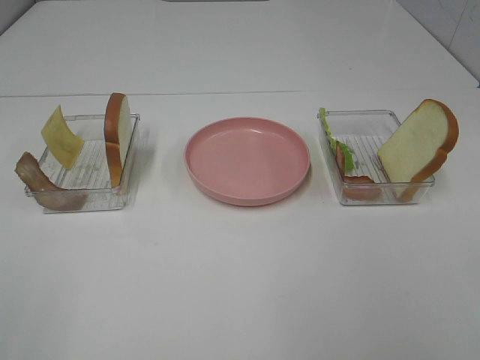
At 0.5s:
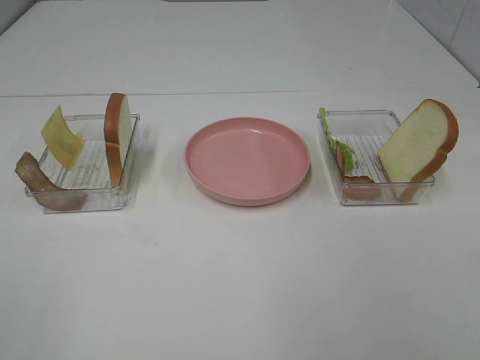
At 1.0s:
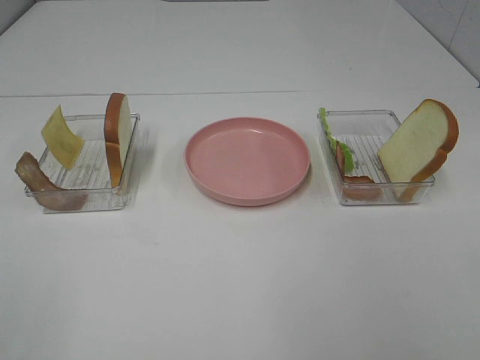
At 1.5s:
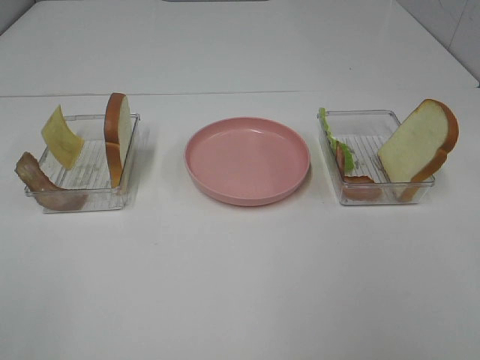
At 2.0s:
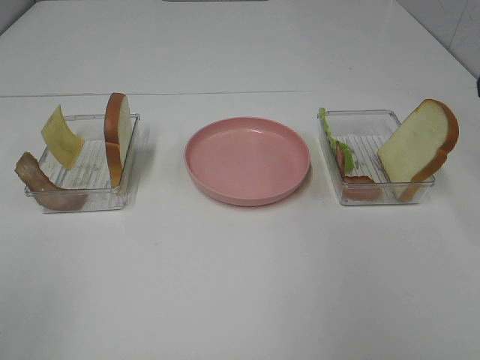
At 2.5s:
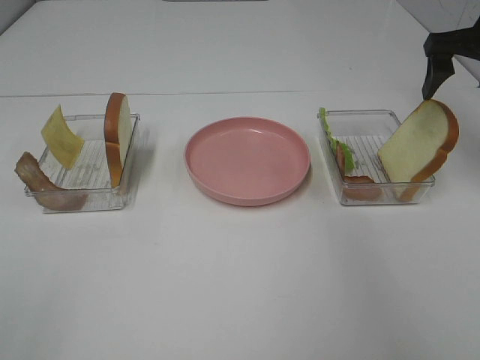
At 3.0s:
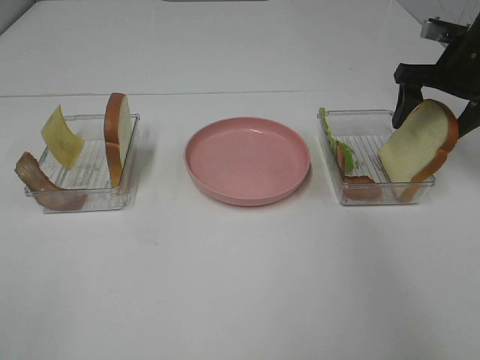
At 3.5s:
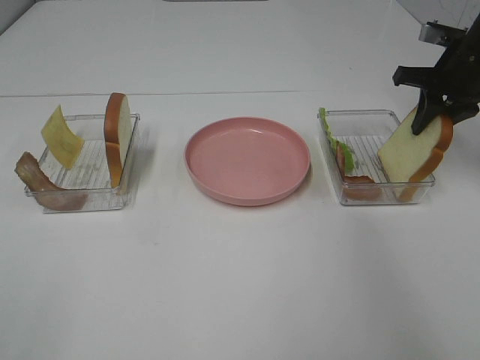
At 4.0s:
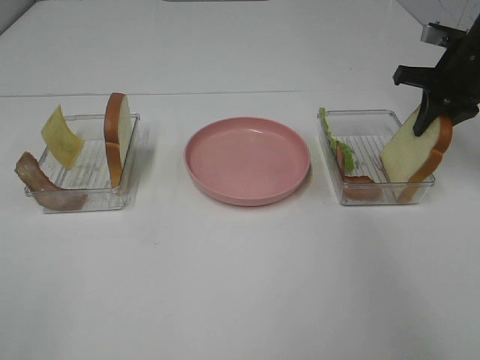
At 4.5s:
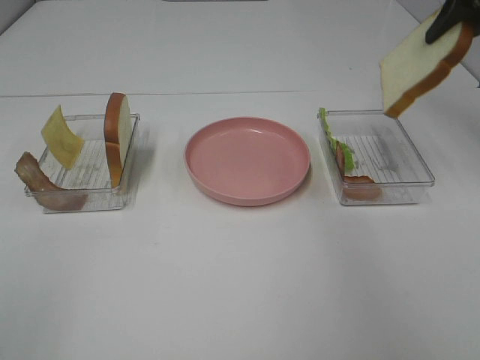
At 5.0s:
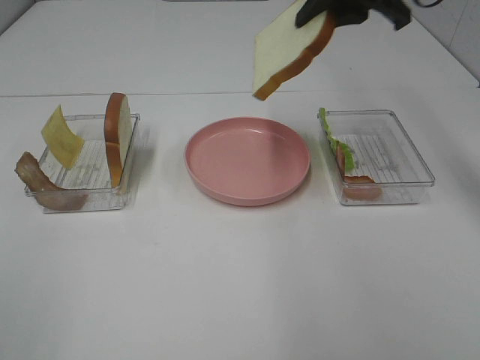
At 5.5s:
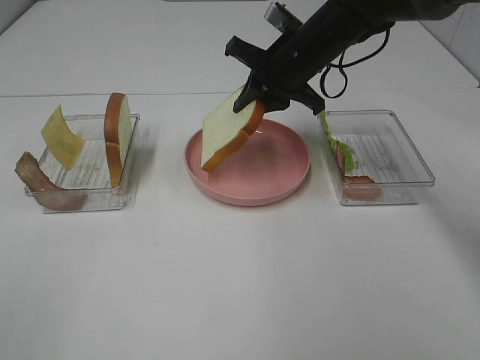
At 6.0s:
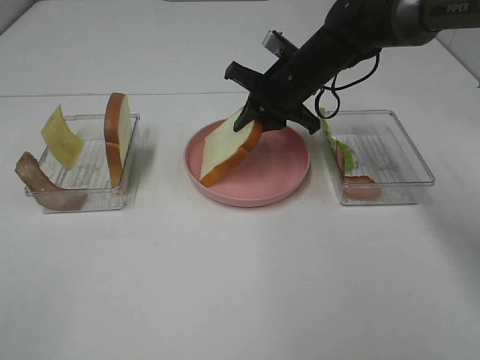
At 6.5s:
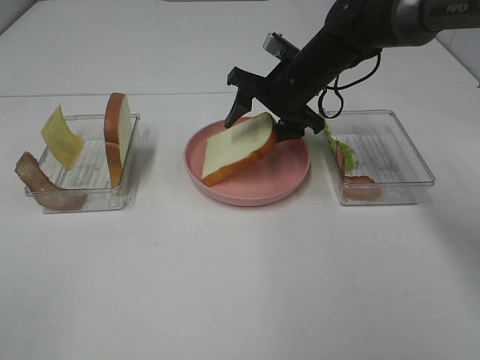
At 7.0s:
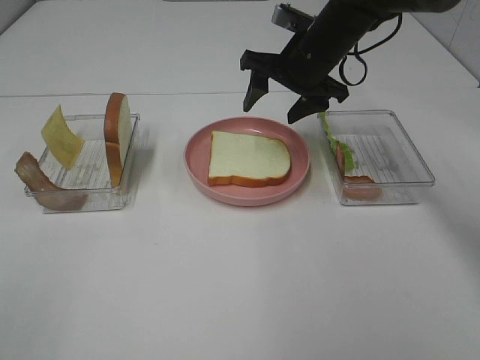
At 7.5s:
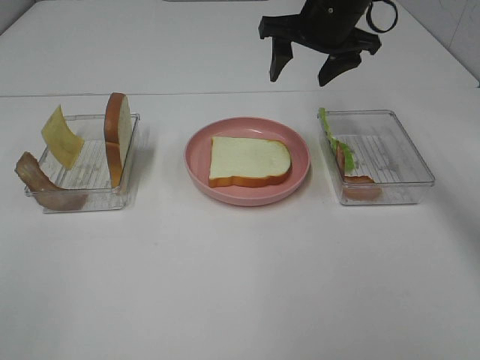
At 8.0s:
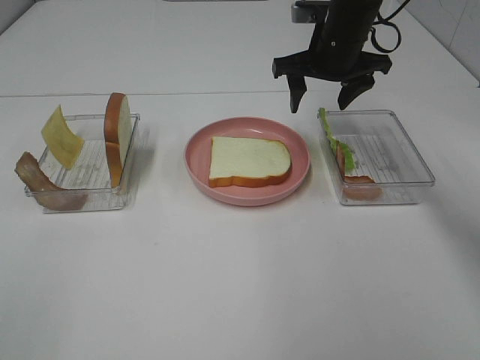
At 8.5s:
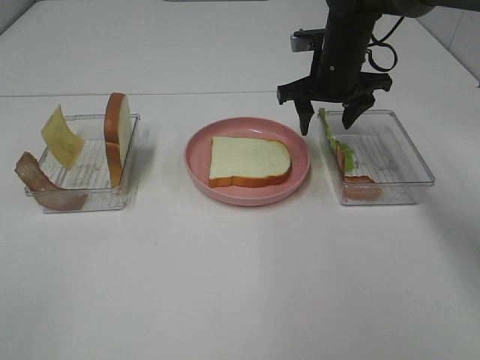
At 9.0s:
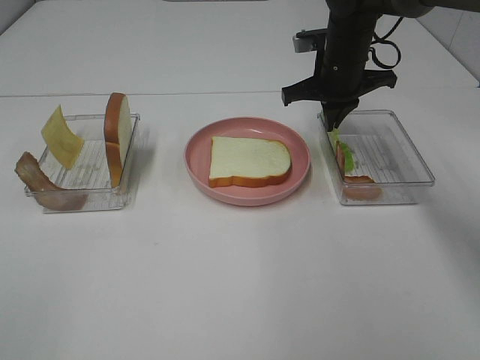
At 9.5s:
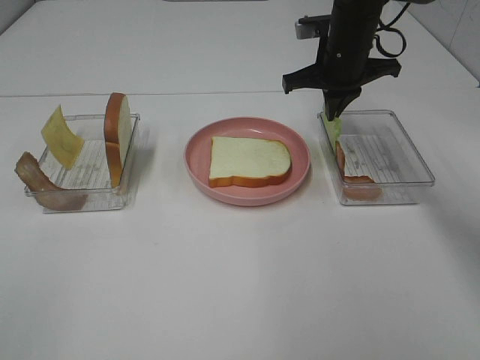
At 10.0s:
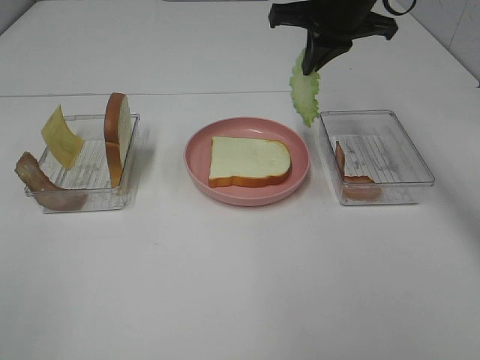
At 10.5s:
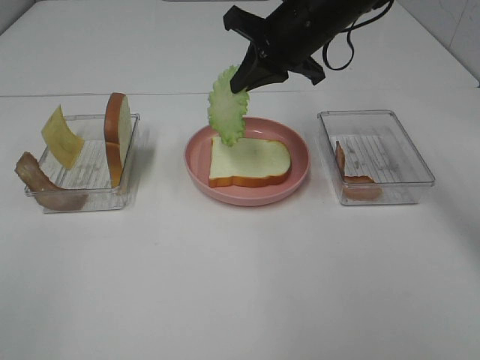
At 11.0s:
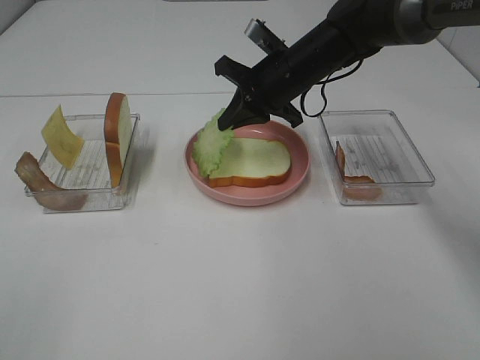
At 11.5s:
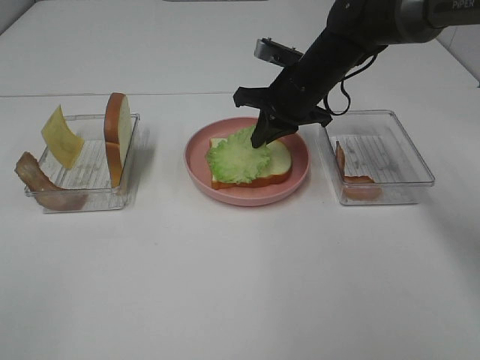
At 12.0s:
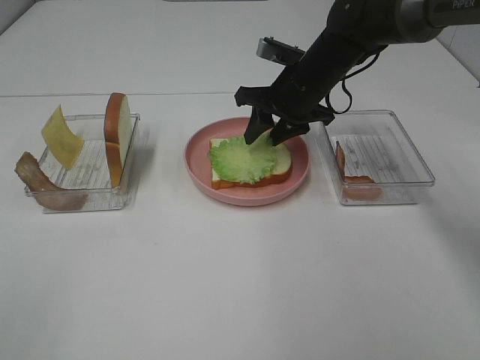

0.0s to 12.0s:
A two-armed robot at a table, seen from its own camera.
Task of the whole recording: Make sandwiches.
Step, 0.0s to 3.5s: Right hand:grab the bread slice.
Step, 4.0s to 7.0s: Right hand:place the bread slice on the plate.
Step, 7.5s to 9.5s: Right hand:grab the lettuce slice.
2.0s to 4.0s: The right gripper moves forward and downward, approximately 20 cm, and closes up.
4.0s to 6.0s: The right gripper travels to the left by about 20 cm.
6.0s to 8.0s: The right gripper opens.
8.0s to 10.0s: The right gripper moves upward, approximately 5 cm, and closes its fingers.
10.0s to 12.0s: The right gripper heads downward, covering about 10 cm, and opens up.

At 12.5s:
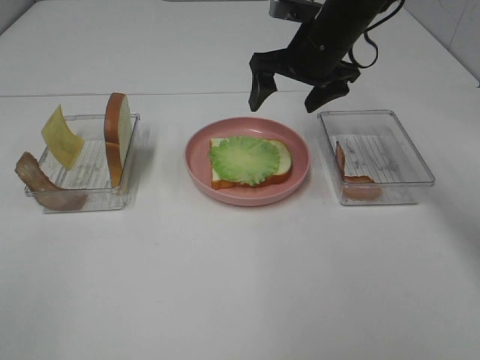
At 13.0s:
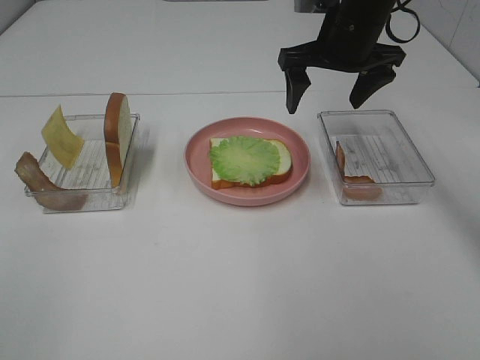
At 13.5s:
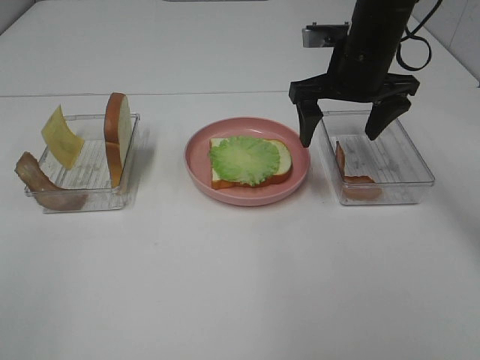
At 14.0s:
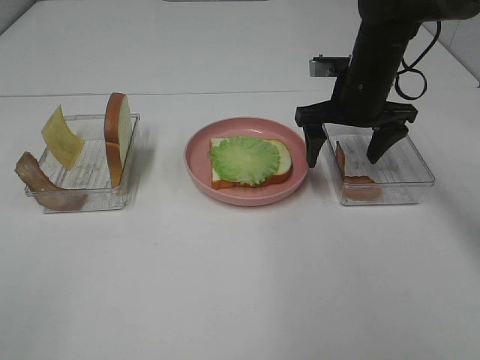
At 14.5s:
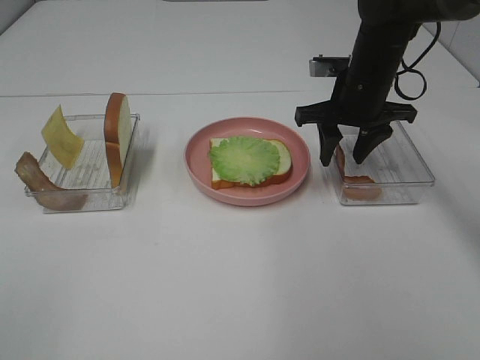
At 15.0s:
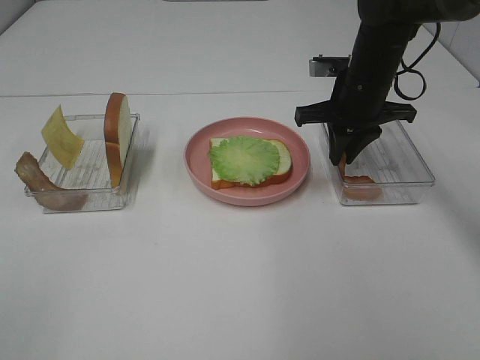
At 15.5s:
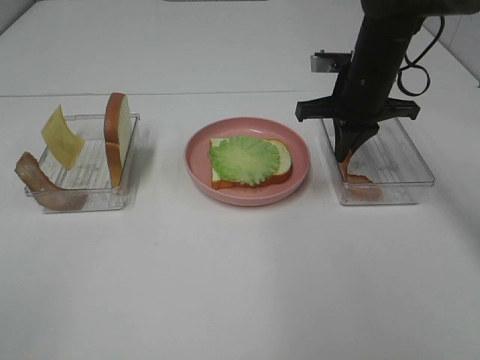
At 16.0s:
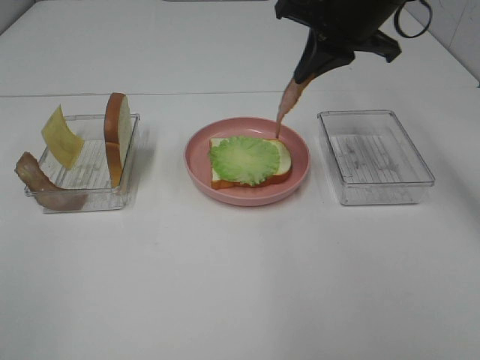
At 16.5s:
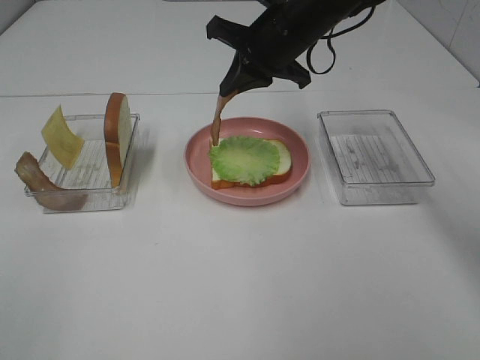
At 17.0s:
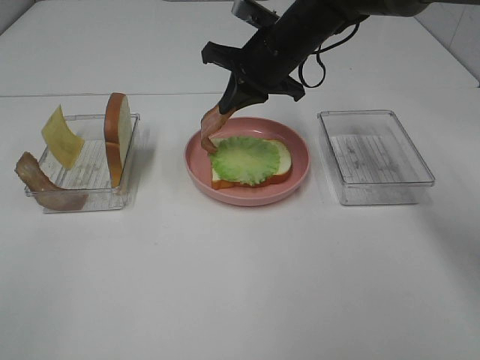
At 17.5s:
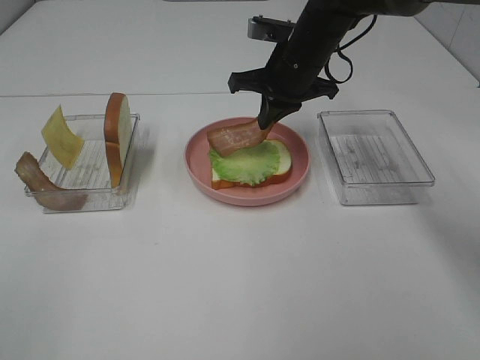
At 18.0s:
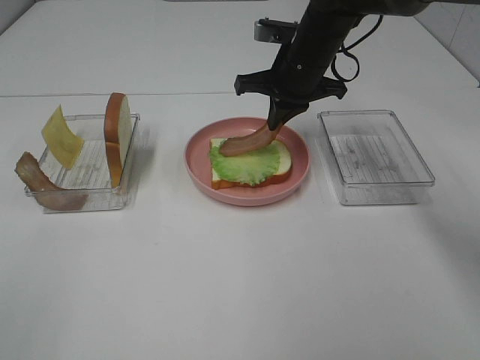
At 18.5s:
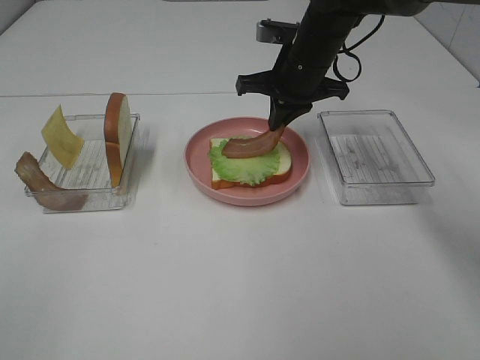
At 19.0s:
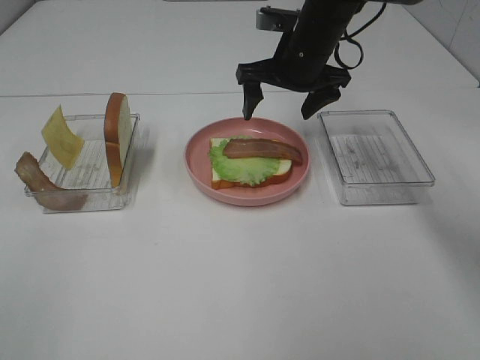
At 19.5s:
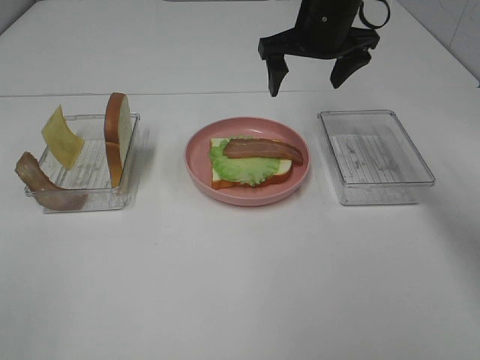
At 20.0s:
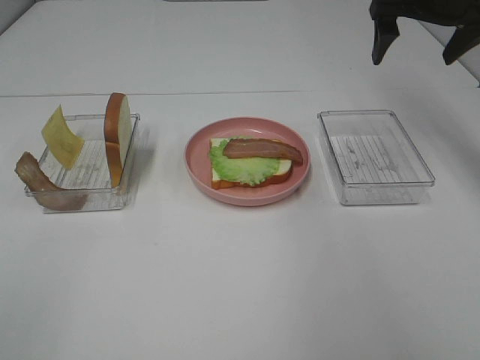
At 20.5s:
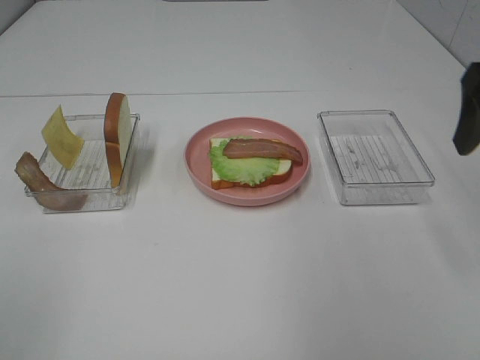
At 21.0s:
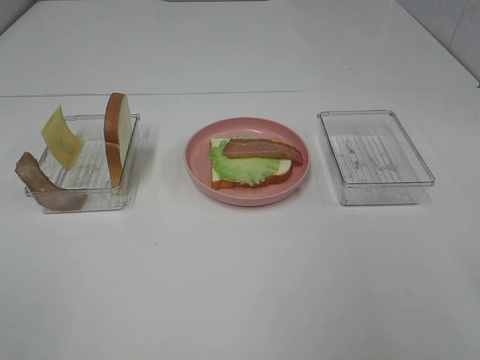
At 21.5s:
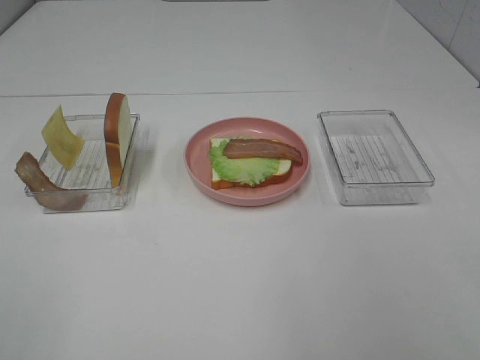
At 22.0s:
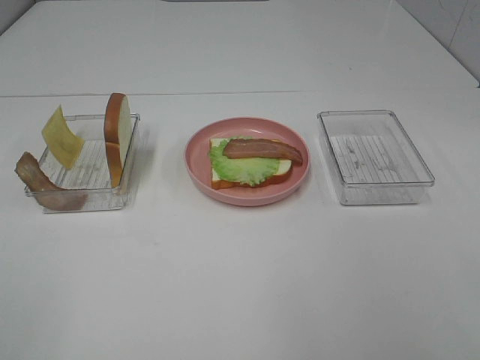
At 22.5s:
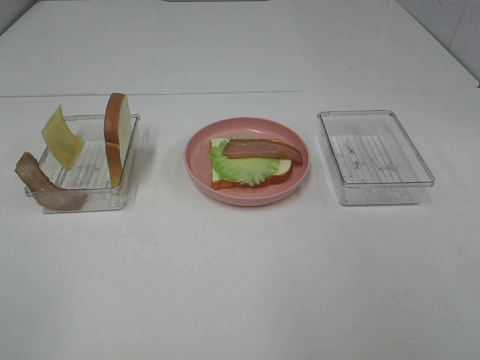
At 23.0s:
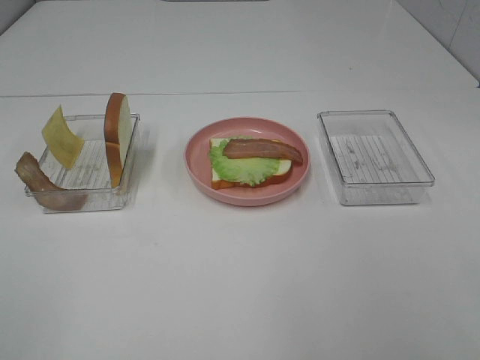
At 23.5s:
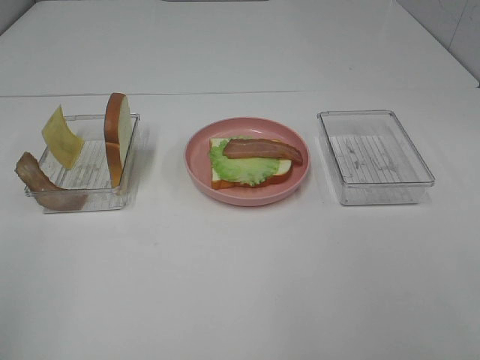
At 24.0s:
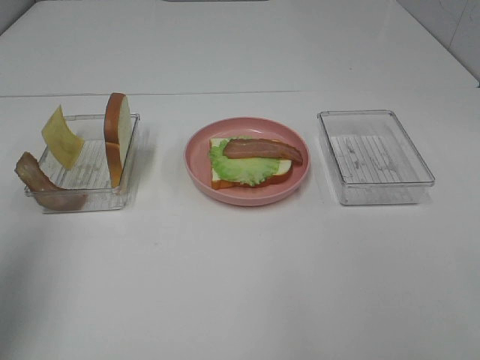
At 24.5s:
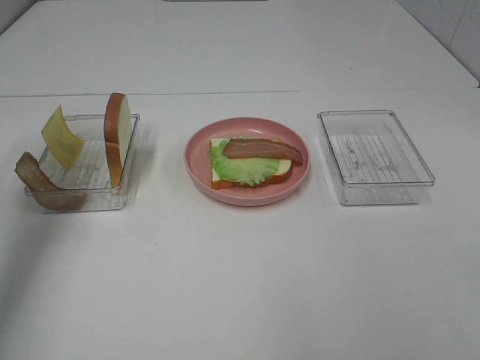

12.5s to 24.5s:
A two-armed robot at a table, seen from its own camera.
Task of the whole recording: Make sandwiches.
Step, 12.5s to 15.5s: Right hand:grab the bacon.
Step, 16.0s to 18.5s: Right hand:place bacon on lettuce slice.
12.5s to 14.5s: The right gripper moves about 5 cm, and closes up.
14.5s to 16.5s: The right gripper heads to the left and upward, covering some 10 cm, and closes up.
18.5s to 20.5s: The right gripper heads backward, to the right and upward, covering approximately 30 cm, and opens.
20.5s to 22.5s: The right gripper shifts roughly 25 cm backward.
22.5s to 24.5s: The left gripper heads forward, covering roughly 35 cm.

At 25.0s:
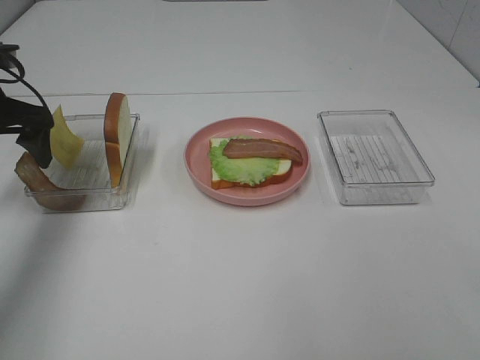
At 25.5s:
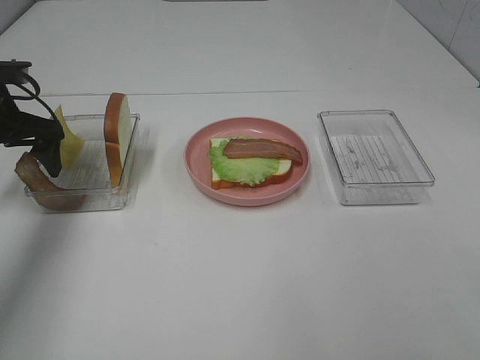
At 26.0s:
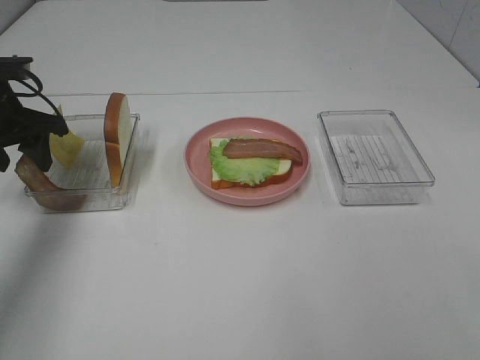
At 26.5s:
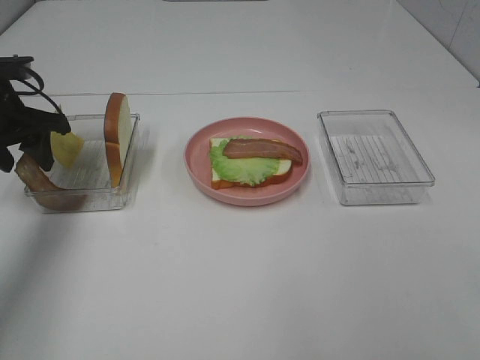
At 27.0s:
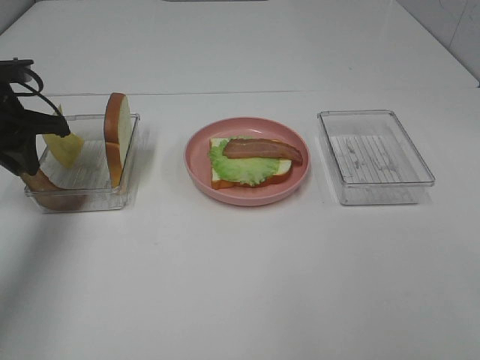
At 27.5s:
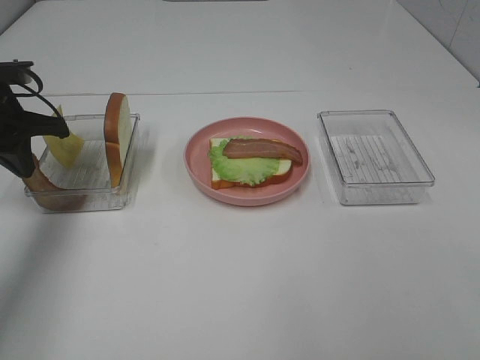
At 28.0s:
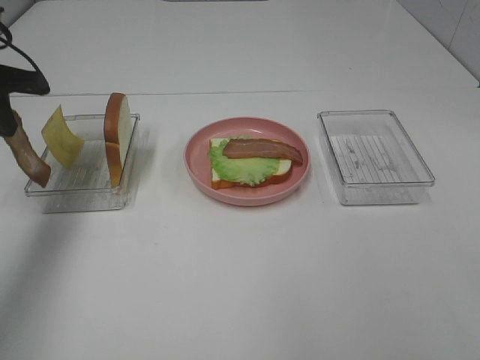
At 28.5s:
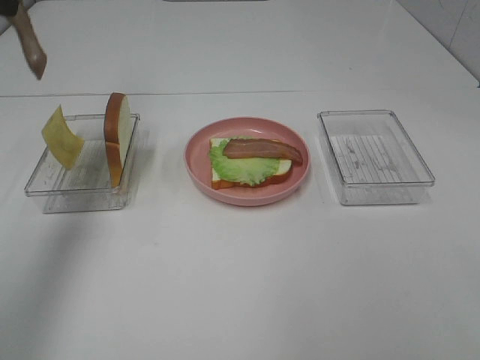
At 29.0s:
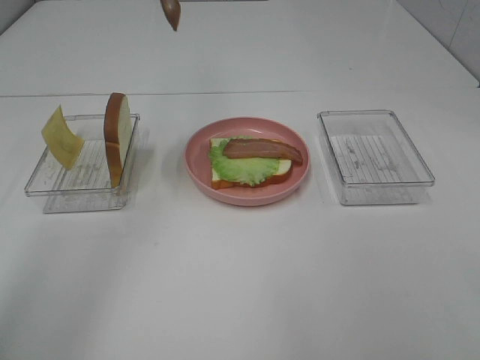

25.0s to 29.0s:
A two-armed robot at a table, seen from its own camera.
Task of the whole recording: Make sandwiches.
Step, 25.0s to 27.5s: Left hand:grab the bacon.
25.0s to 27.0s: The left gripper closes its fingers.
27.0s to 29.0s: The left gripper shifts roughly 25 cm upward and to the right.
